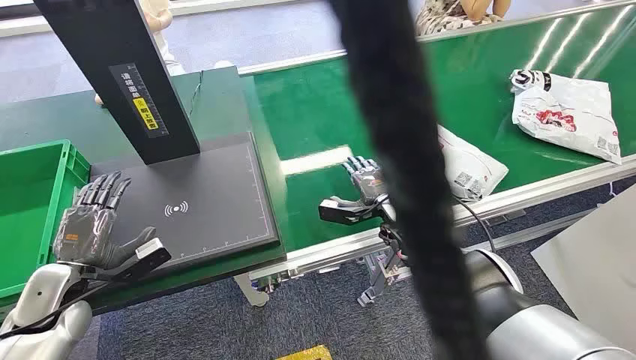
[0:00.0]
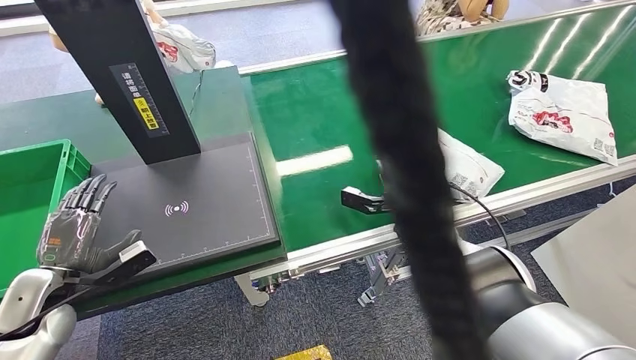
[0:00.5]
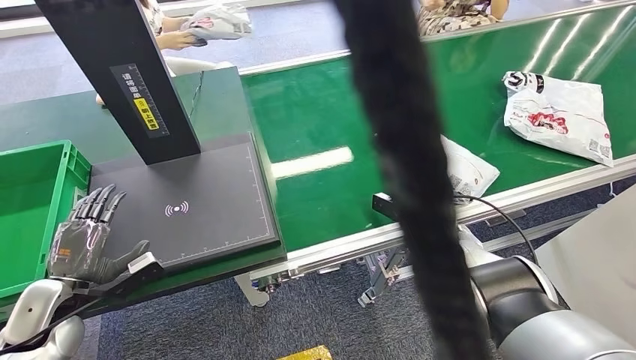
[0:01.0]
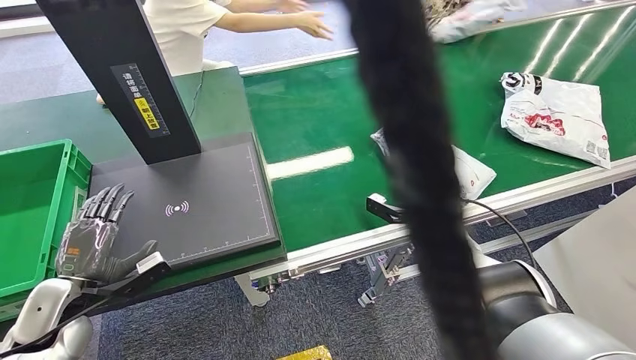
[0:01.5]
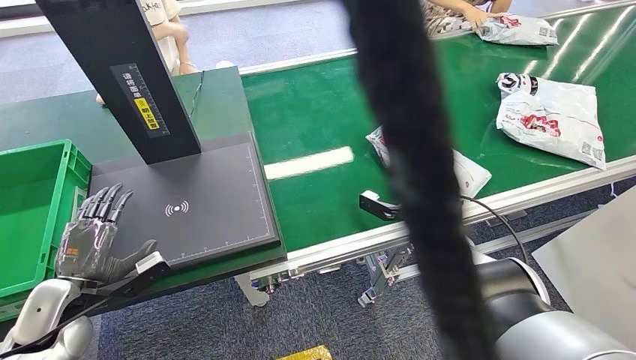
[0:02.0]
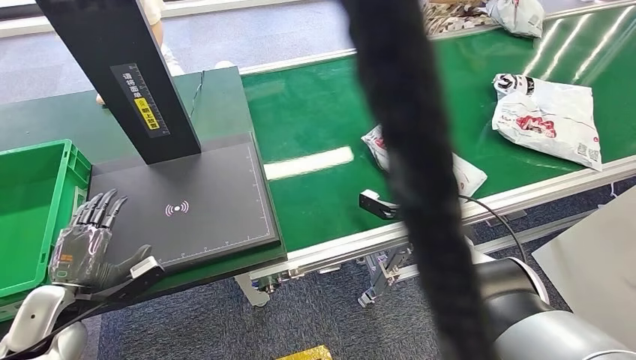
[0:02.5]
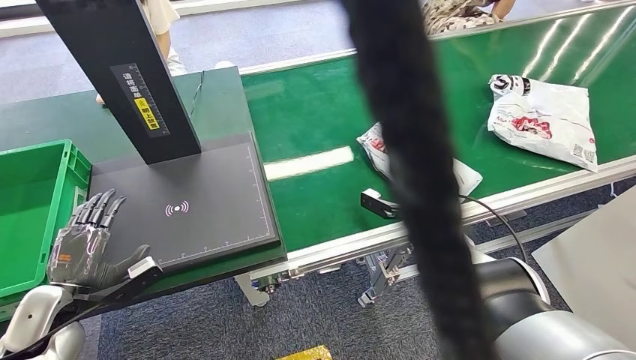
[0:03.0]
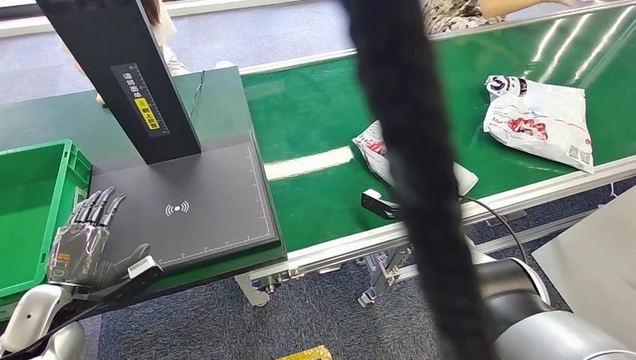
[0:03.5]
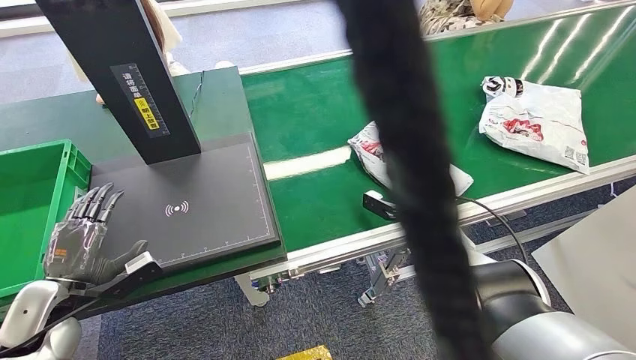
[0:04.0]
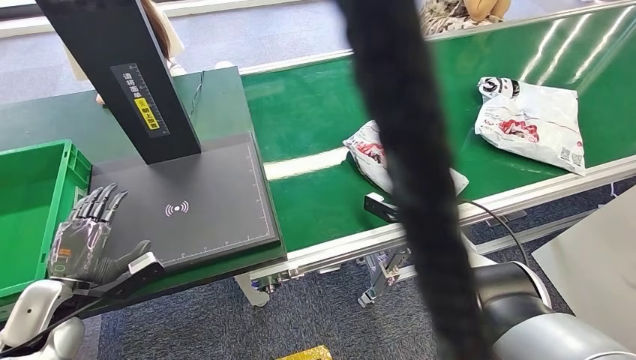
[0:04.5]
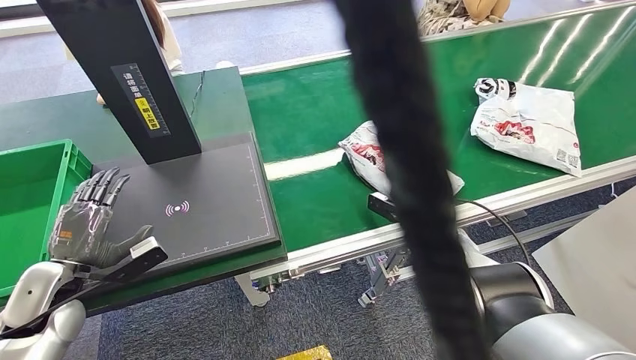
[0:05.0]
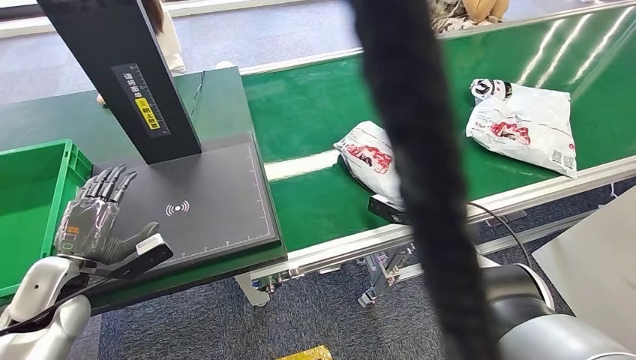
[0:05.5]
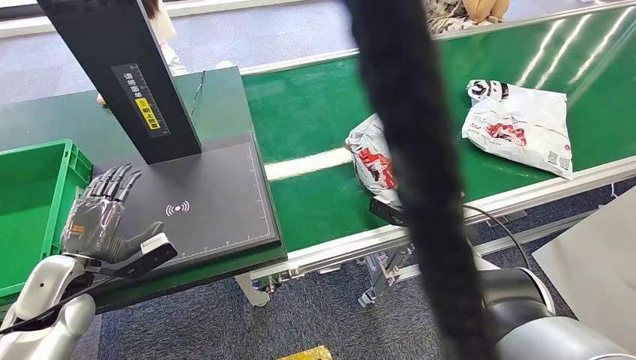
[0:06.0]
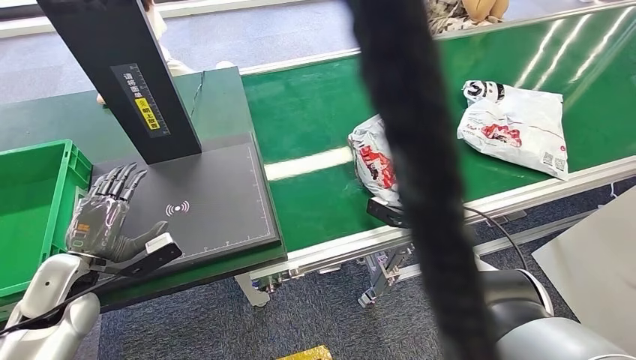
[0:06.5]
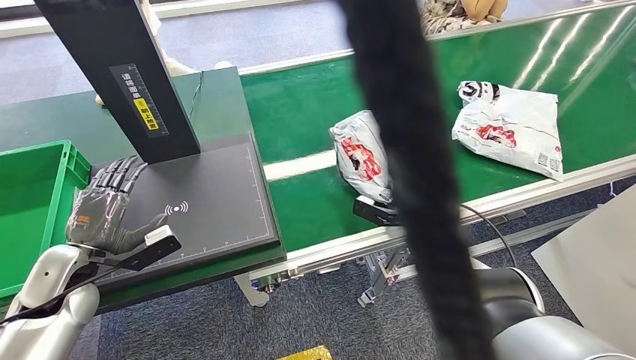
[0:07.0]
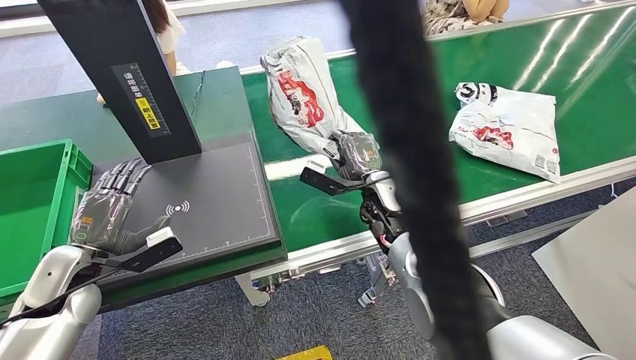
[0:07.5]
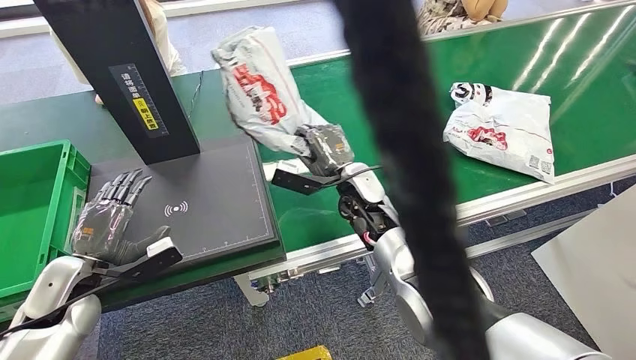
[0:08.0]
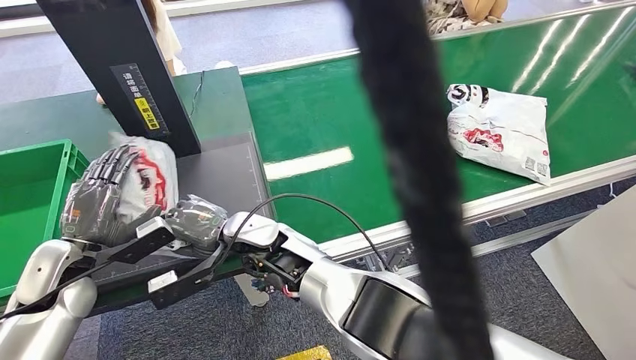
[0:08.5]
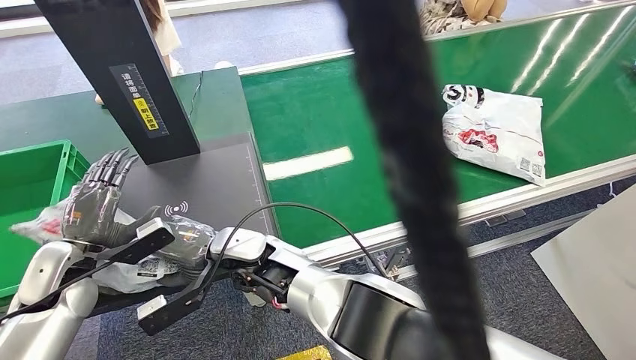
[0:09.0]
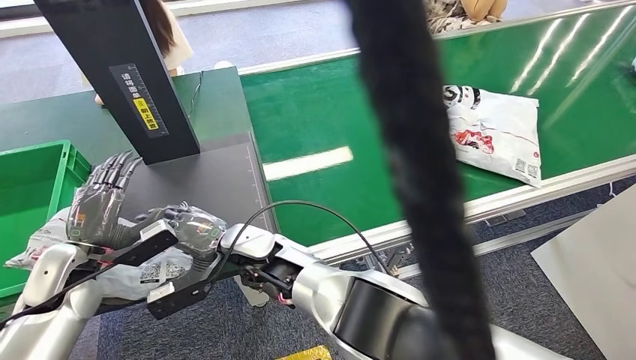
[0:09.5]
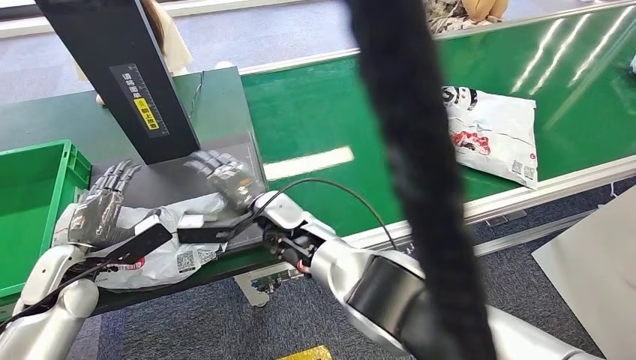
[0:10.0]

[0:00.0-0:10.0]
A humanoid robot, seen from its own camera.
Step, 0:00.0 to 0:07.5: Pick up the package from the conveyor belt.
Step, 0:08.0 to 0:10.0: Place the package onto the inbound machine.
0:02.0 to 0:06.0: The hands move only a little.

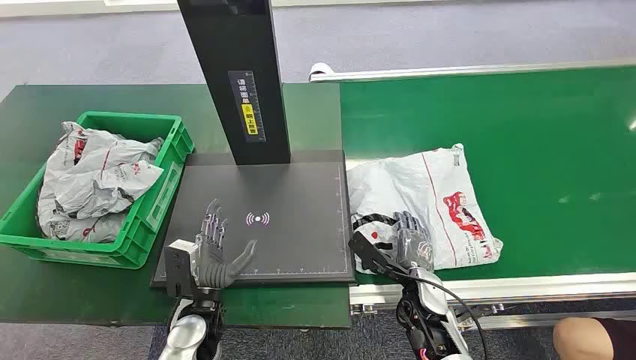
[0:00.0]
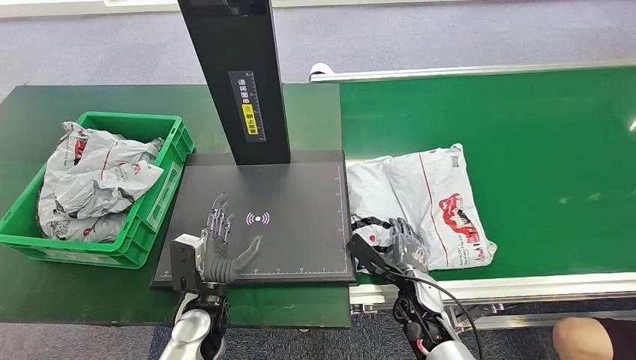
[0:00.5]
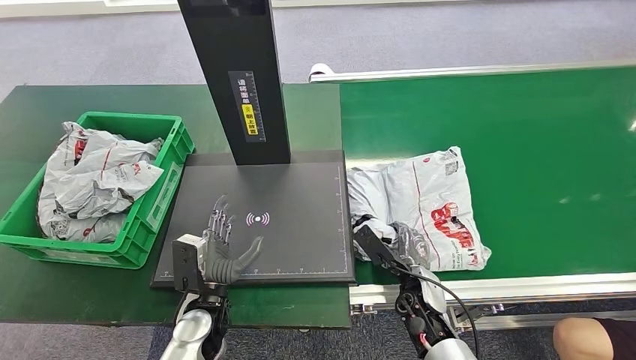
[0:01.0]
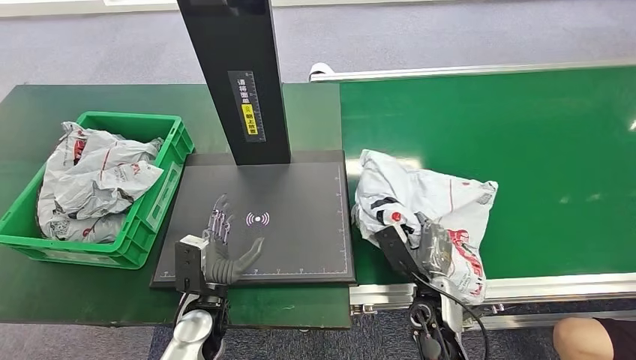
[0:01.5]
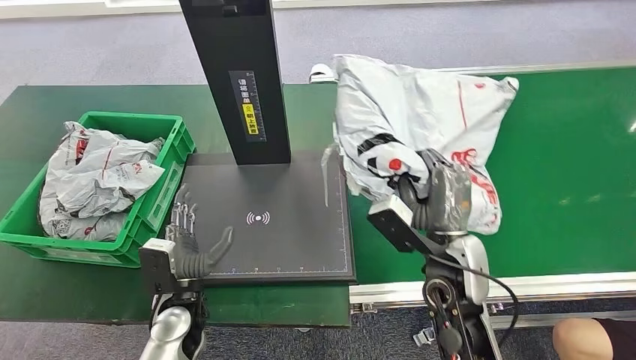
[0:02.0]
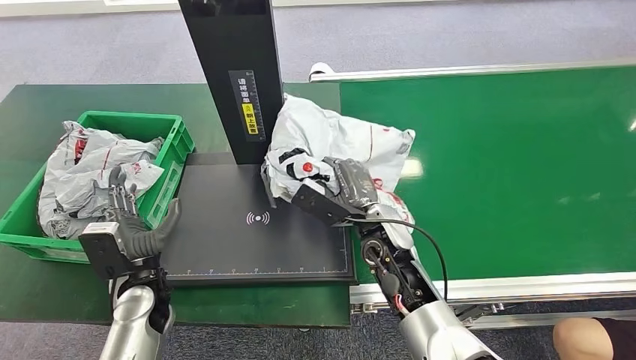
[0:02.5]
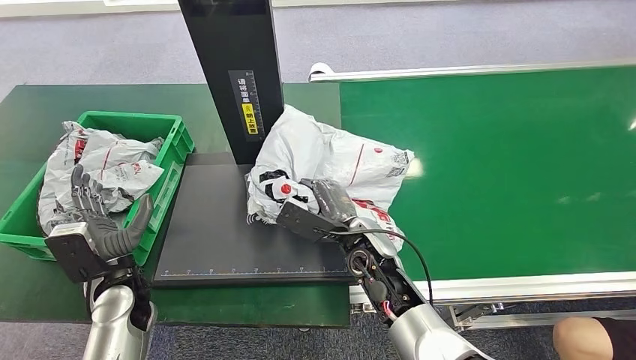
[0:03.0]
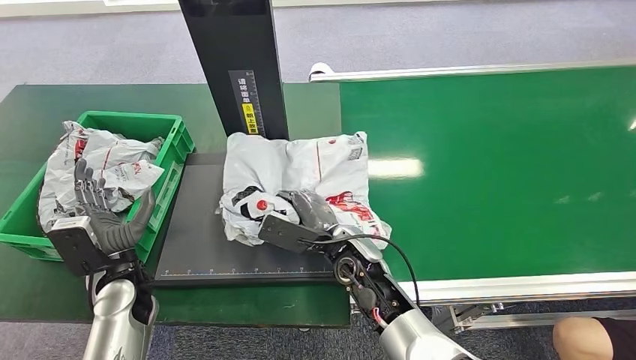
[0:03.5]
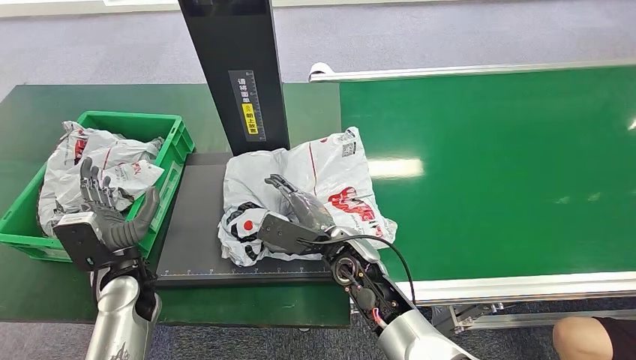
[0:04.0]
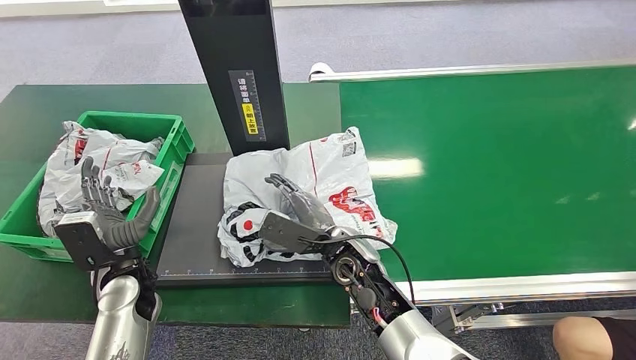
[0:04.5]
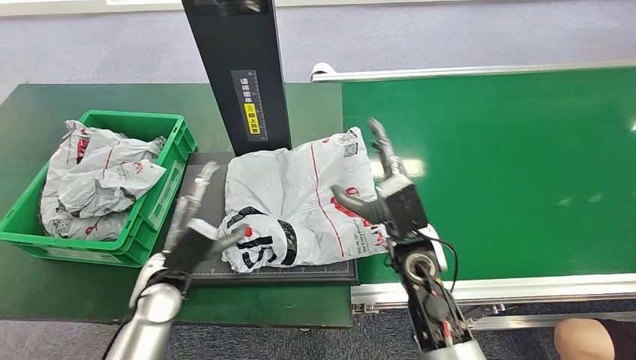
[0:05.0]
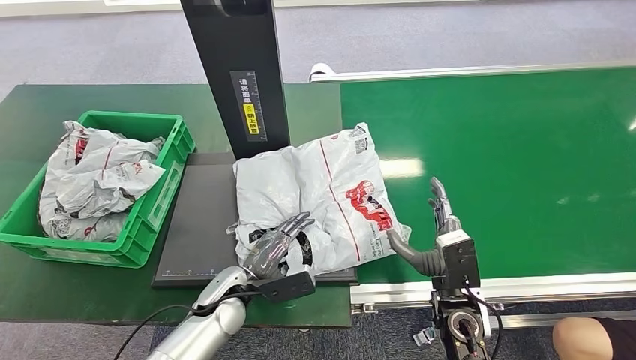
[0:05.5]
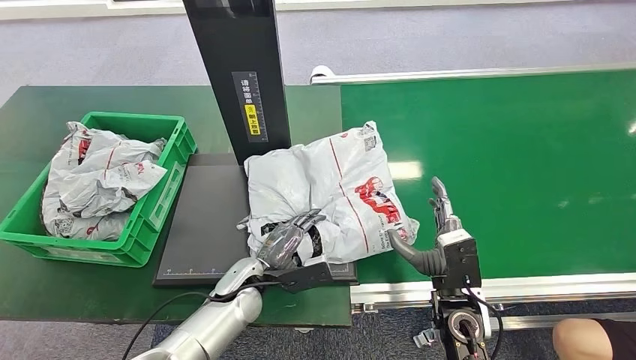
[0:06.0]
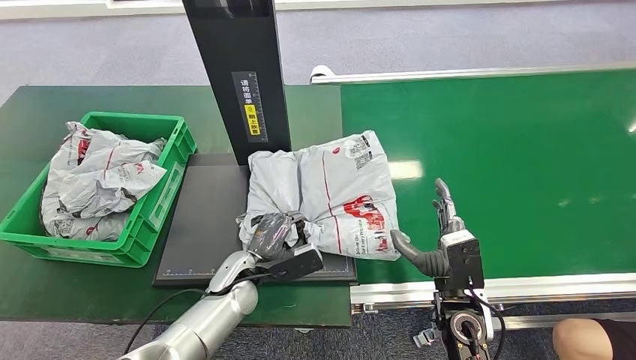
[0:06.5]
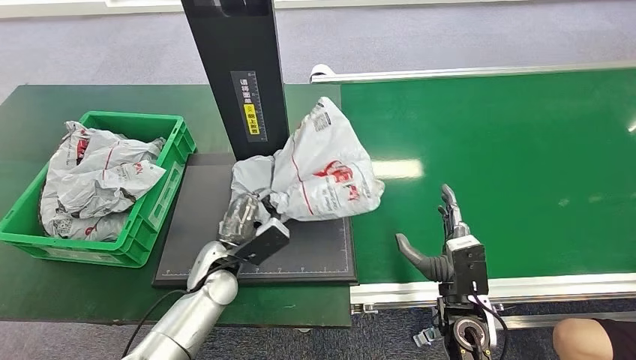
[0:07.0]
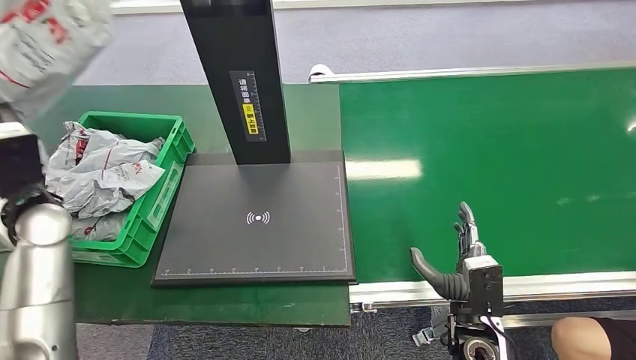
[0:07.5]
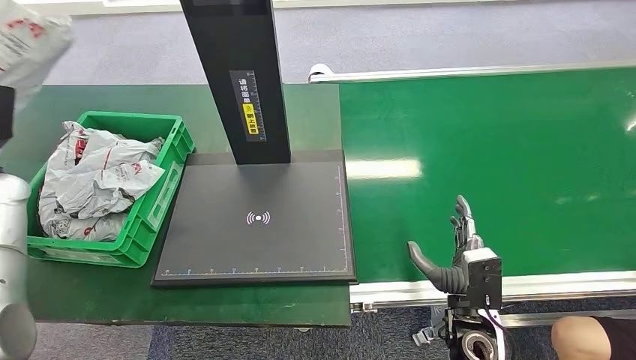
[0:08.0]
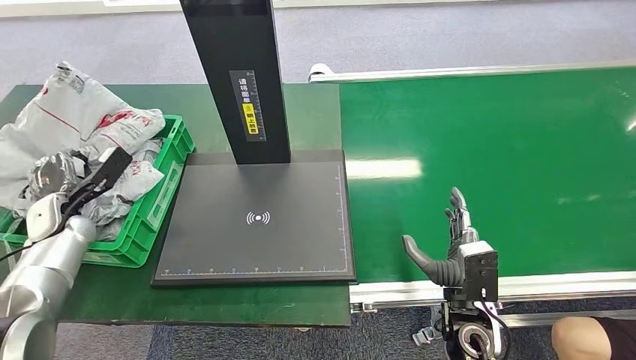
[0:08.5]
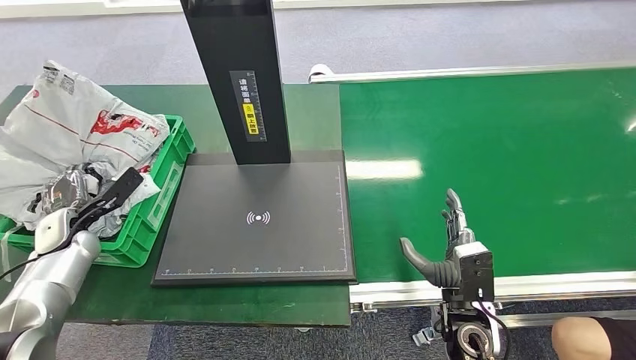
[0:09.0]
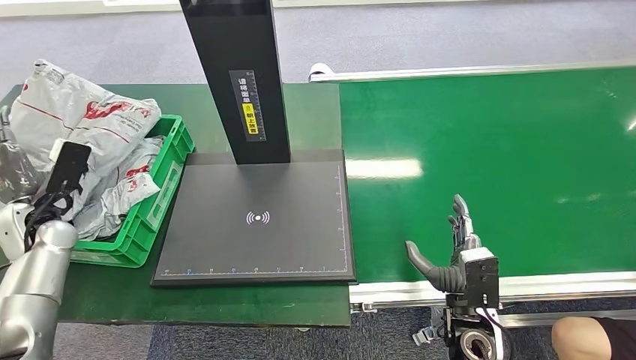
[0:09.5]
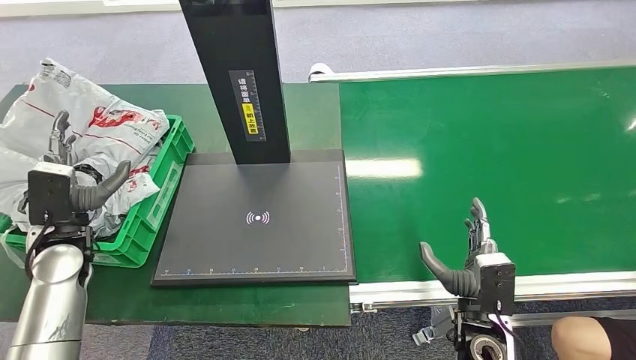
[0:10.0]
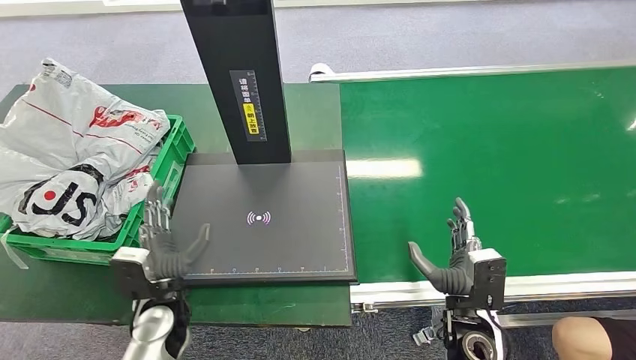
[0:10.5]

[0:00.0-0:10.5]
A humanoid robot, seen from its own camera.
Step, 0:00.0 to 0:01.5: Pick up the package from the conveyor belt.
Step, 0:02.0 to 0:05.0: Place the package onto the inbound machine.
Step, 0:05.5 to 0:07.5: Pick up the package from the inbound machine.
Step, 0:08.0 to 0:10.5: Place the package into the parcel locker.
0:08.5 to 0:10.5: The left hand shifts some 25 cm to the right and backward.
